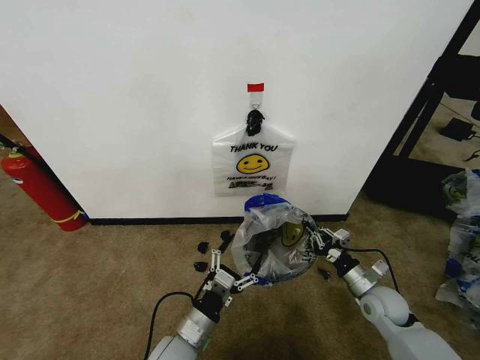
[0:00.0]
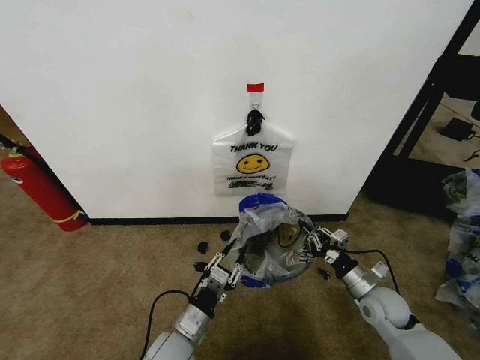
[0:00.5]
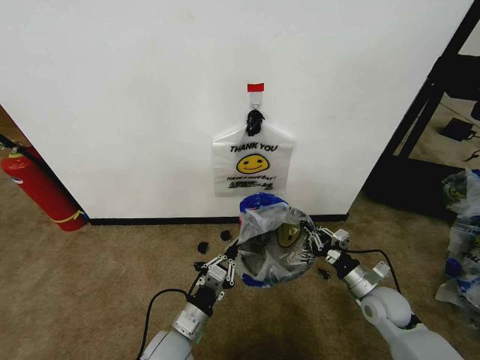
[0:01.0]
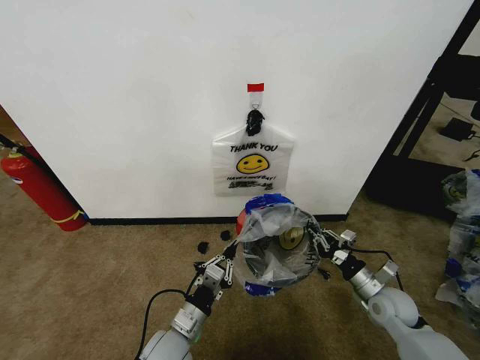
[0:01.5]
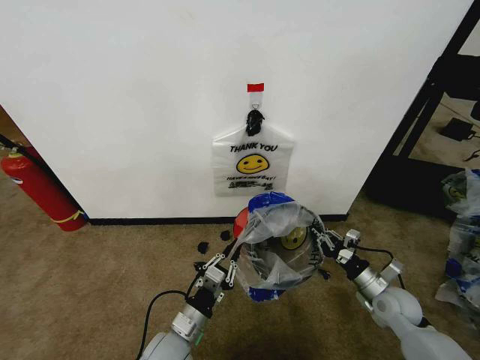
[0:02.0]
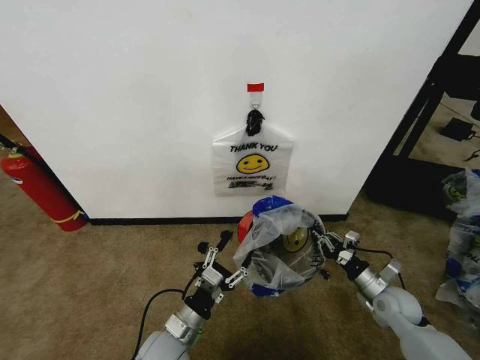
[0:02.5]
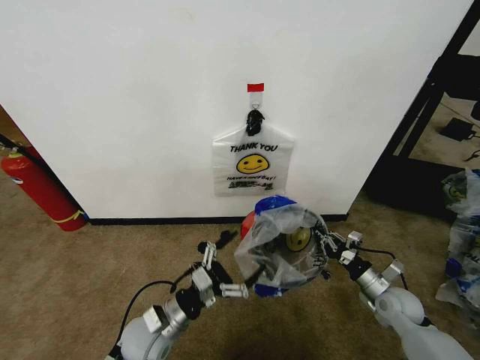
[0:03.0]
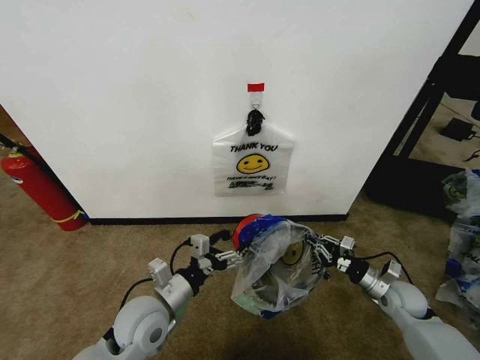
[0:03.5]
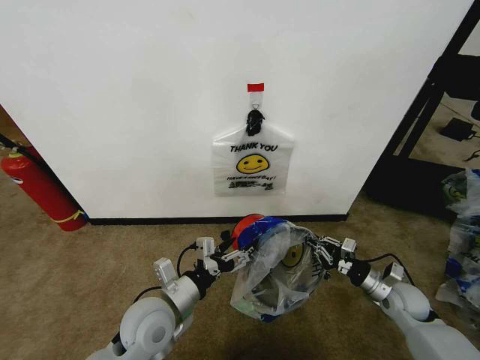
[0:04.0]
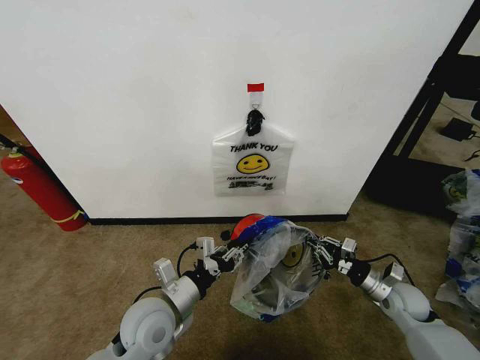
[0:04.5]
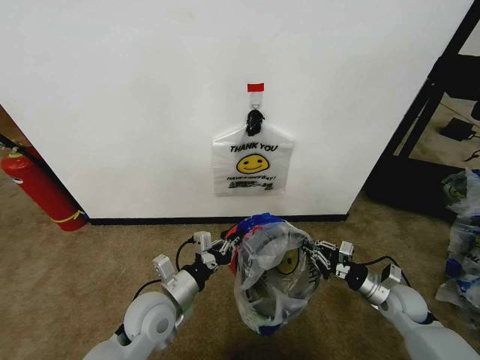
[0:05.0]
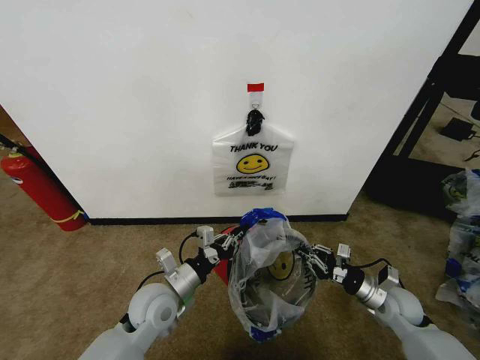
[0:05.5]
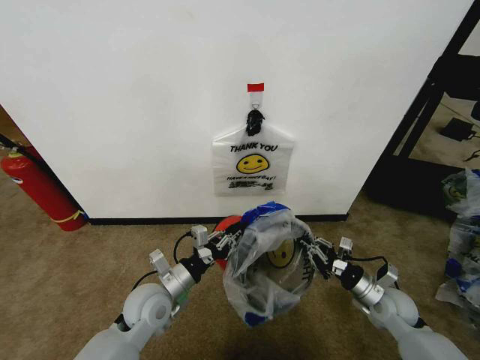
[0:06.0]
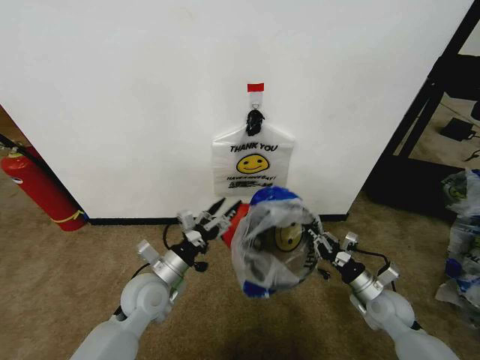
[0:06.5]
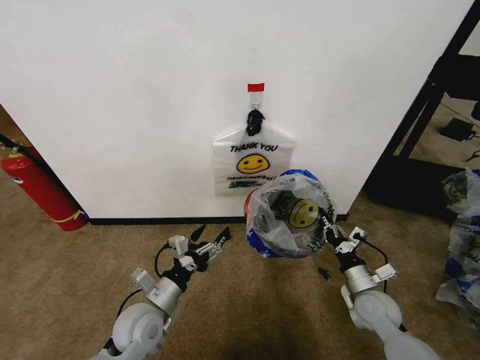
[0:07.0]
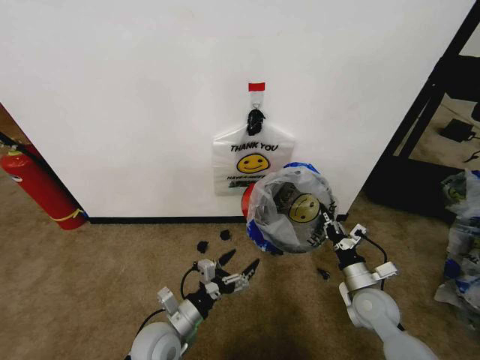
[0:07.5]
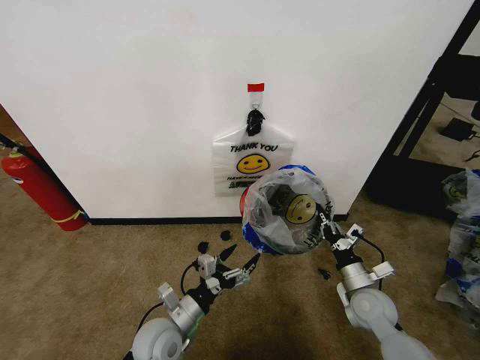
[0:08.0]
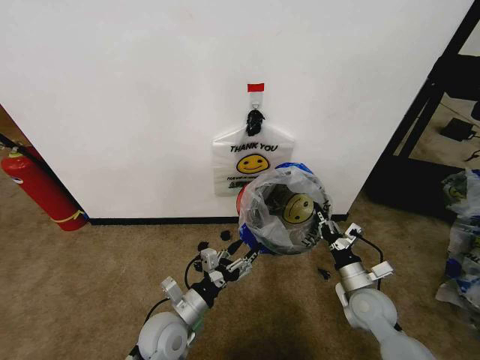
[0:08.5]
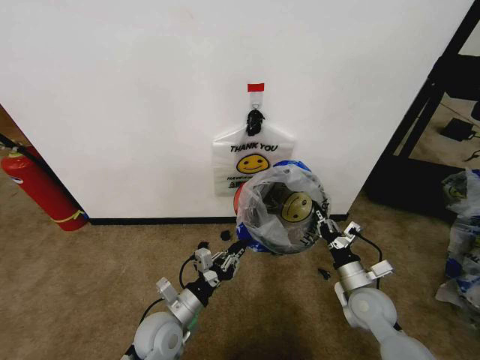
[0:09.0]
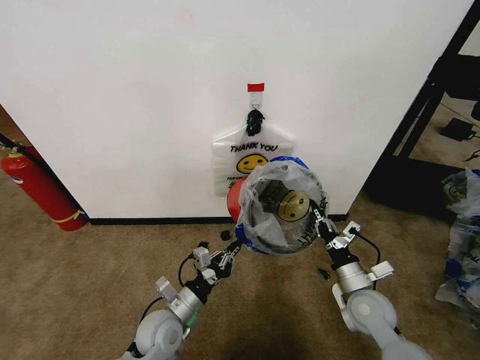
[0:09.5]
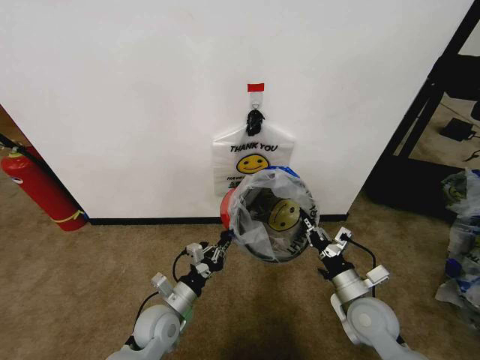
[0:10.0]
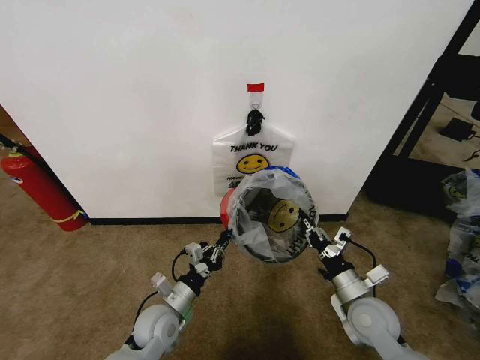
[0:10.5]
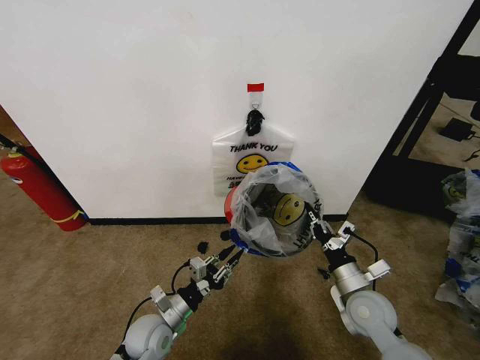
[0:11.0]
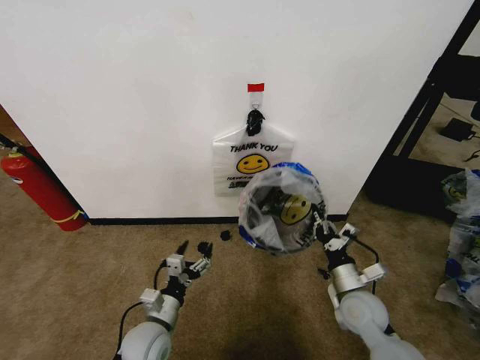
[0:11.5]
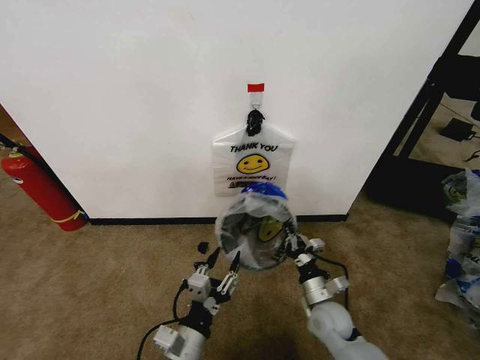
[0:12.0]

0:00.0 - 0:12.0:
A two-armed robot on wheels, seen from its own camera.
Task of the whole recording: Pick up the garbage bag from the wall and place it over the trash bin.
0:00.0 - 0:02.0: The left gripper closes its fingers.
0:02.0 - 0:04.0: The left gripper is displaced upward by roughly 10 cm, and opens up.
0:04.0 - 0:06.0: The left gripper ends up approximately 5 cm from where it was, and closes up.
0:06.0 - 0:08.0: The right gripper is displaced to the left by roughly 5 cm. The left gripper shifts approximately 5 cm backward, and opens its fingers.
0:08.0 - 0:10.0: The left gripper closes. Meanwhile the right gripper shifts by about 5 cm.
0:10.0 - 0:12.0: The left gripper heads backward, to the right and upward, covering some 15 cm, and opens up. The right gripper is displaced downward and to the left by roughly 10 cm.

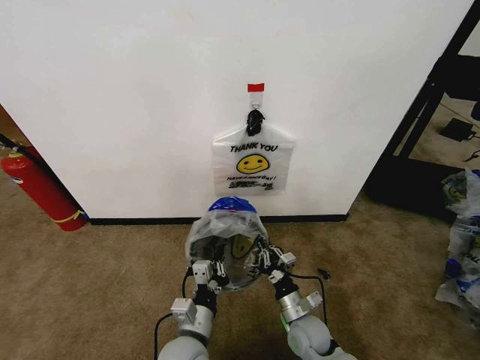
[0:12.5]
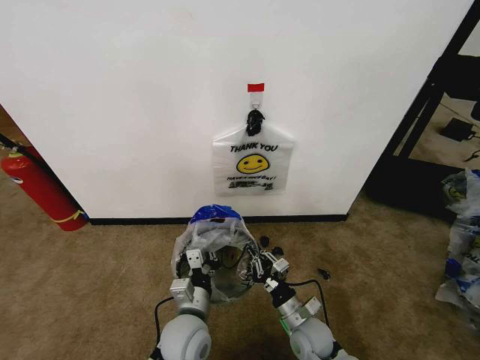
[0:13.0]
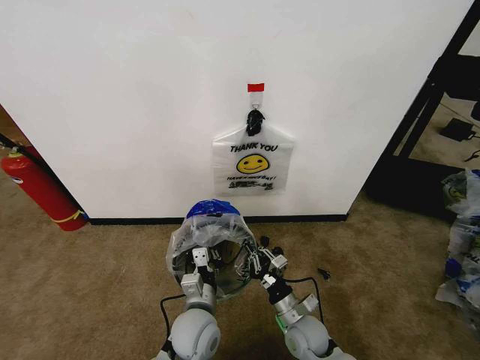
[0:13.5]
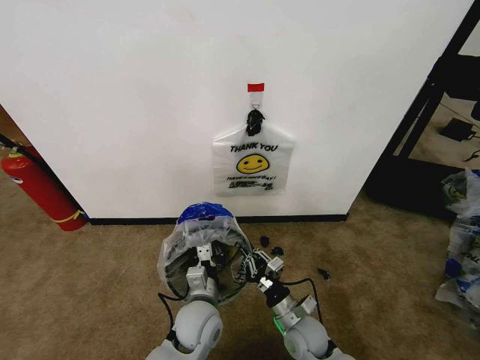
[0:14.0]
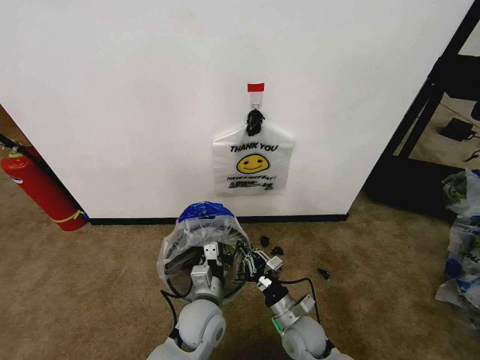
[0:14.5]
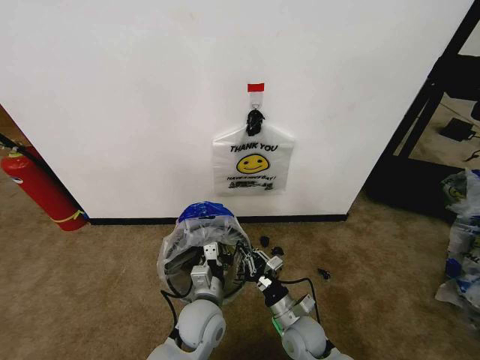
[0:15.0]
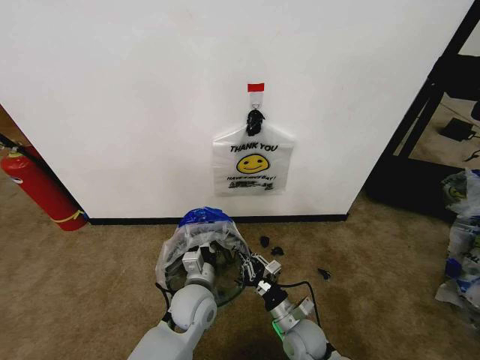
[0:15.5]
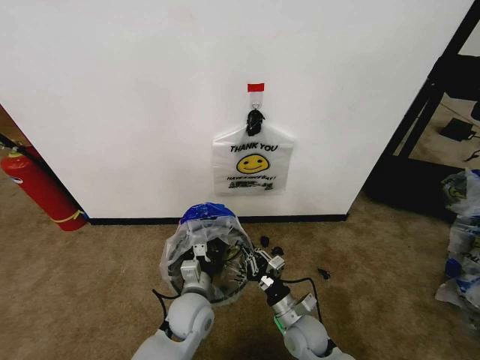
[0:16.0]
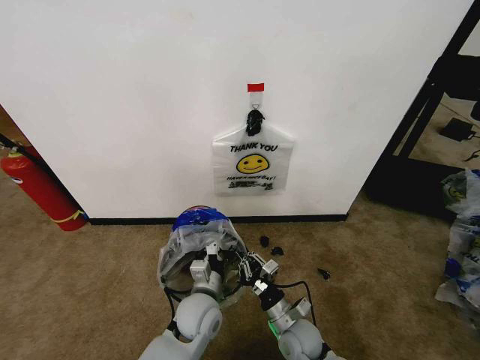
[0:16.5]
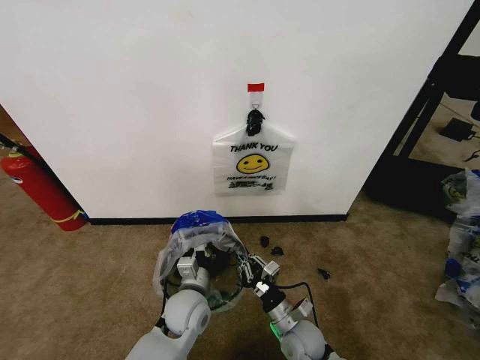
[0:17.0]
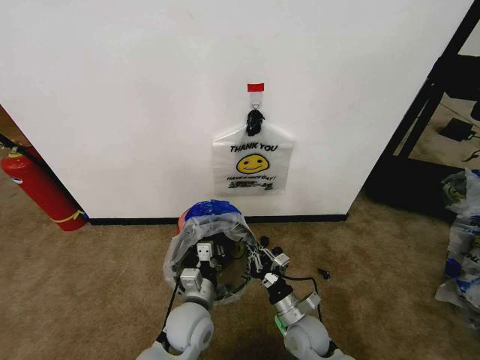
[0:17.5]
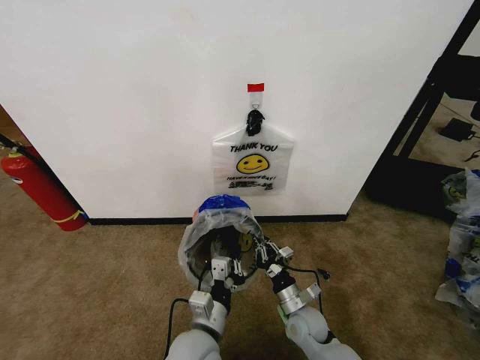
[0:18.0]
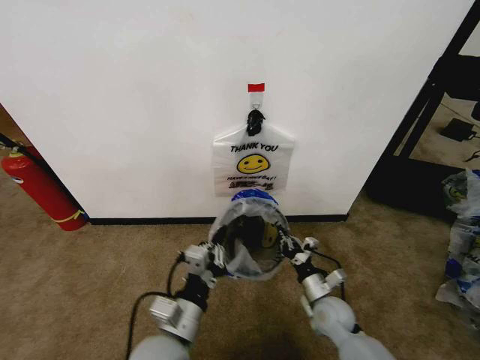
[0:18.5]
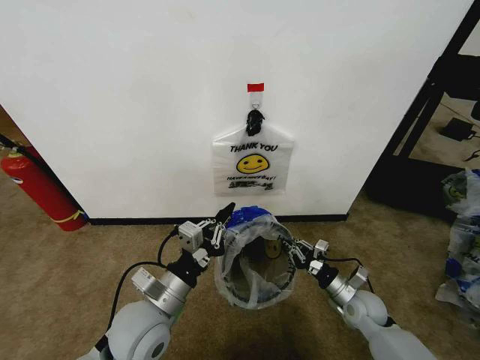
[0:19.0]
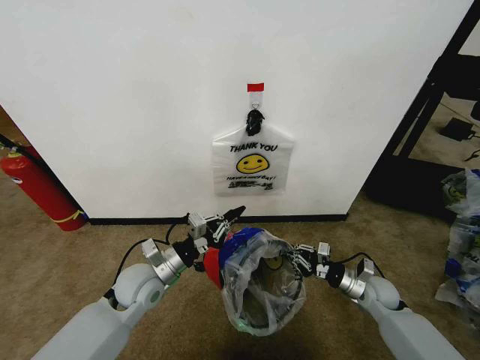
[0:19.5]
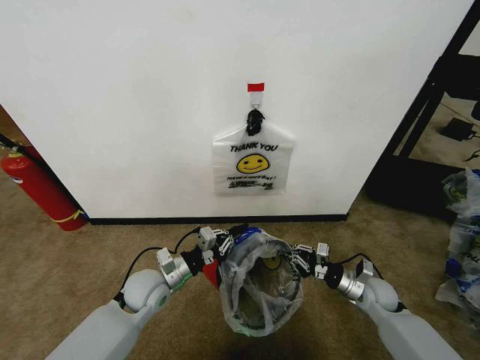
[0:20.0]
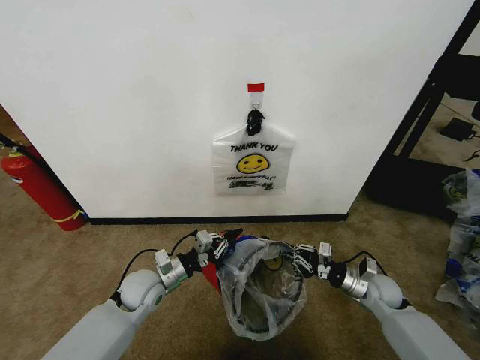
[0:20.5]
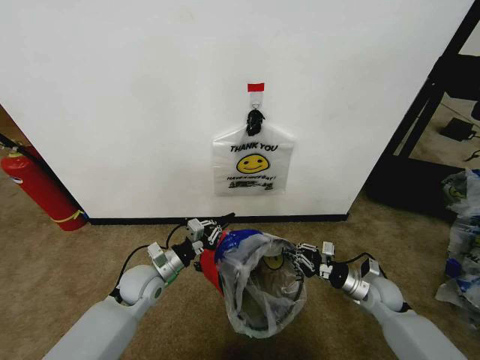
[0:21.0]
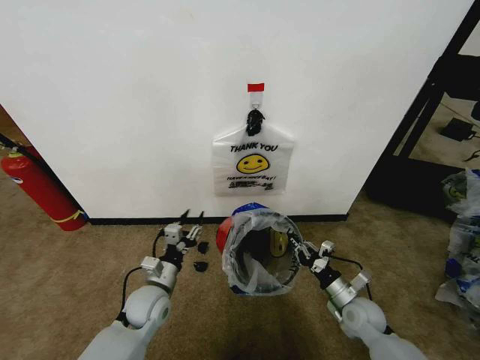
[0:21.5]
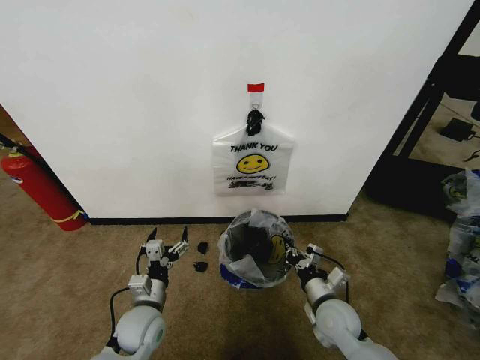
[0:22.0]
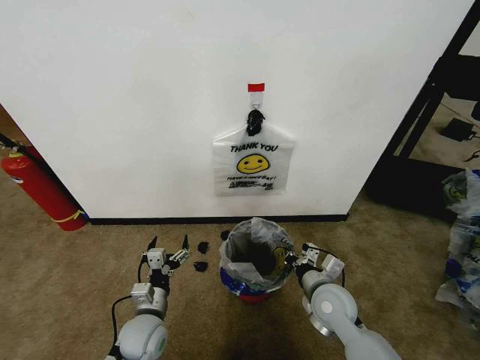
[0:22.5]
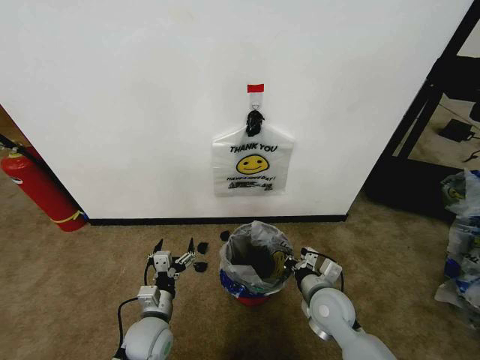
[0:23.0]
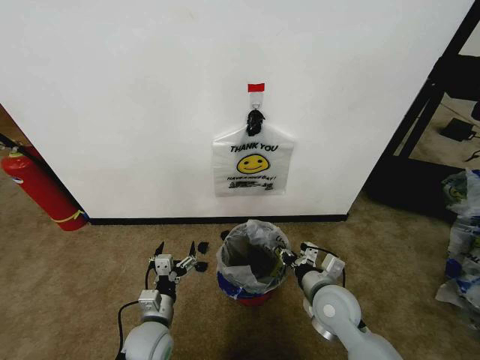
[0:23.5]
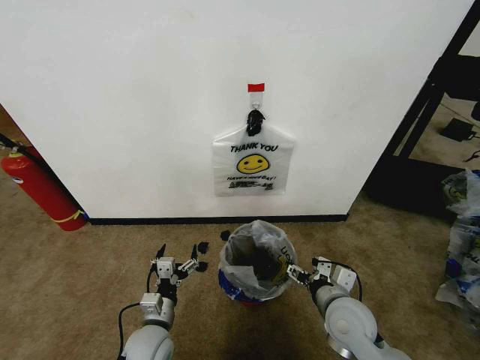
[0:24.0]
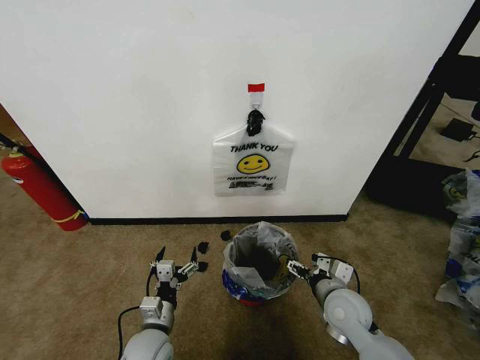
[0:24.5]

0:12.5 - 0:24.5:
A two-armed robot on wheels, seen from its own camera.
Task of the whole recording: Pick up the garbage bag from the wall and place it over the trash bin.
0:12.5 - 0:14.5: The left gripper goes about 5 cm forward.
0:14.5 - 0:16.5: The grippers move only a little.
0:16.5 - 0:18.5: The right gripper moves to the right and forward, some 10 cm. The left gripper travels backward and upward by roughly 15 cm.
0:18.5 - 0:20.5: The right gripper shifts approximately 10 cm to the right. The left gripper goes roughly 20 cm forward, to the left and downward.
0:20.5 - 0:22.5: The right gripper moves to the left, approximately 15 cm. Meanwhile the left gripper is displaced backward by some 10 cm, and opens.
0:22.5 - 0:24.5: The right gripper opens its fingers.

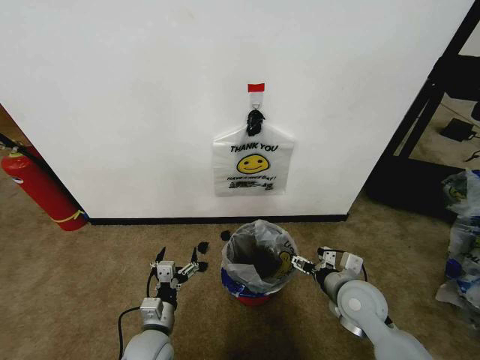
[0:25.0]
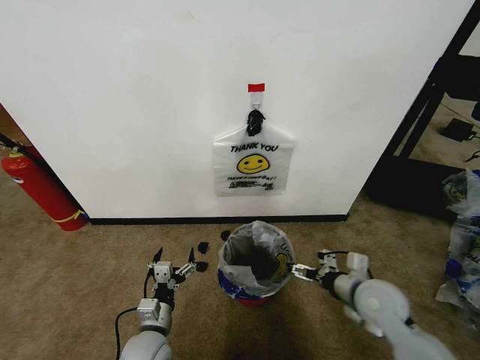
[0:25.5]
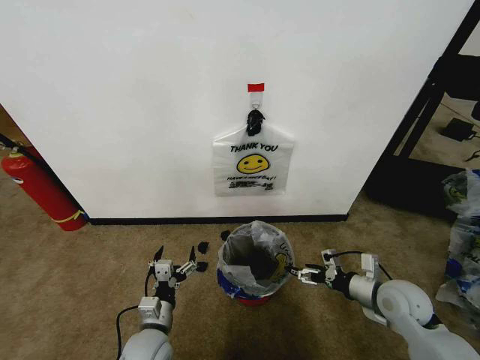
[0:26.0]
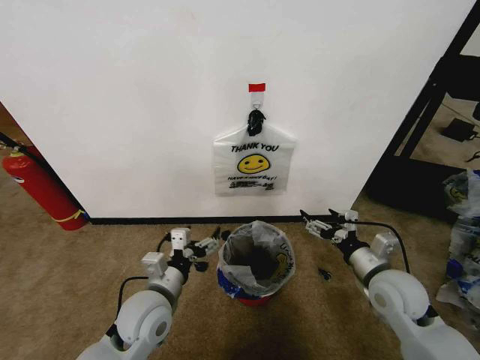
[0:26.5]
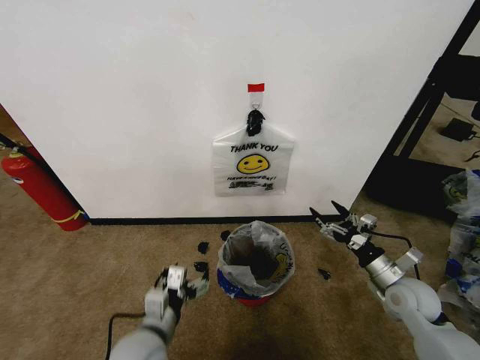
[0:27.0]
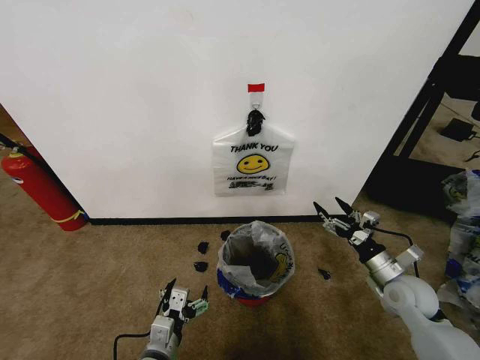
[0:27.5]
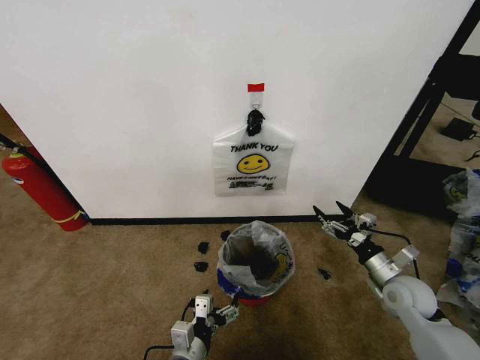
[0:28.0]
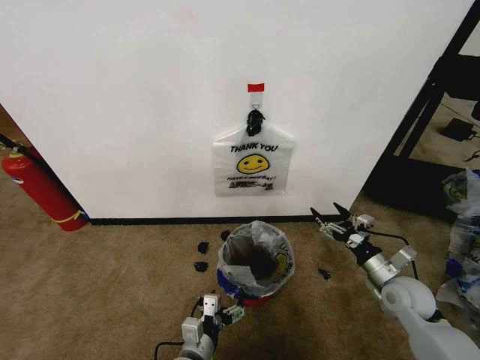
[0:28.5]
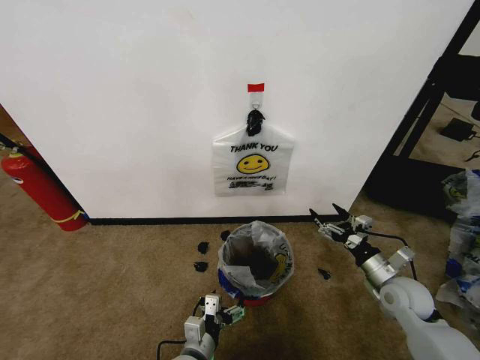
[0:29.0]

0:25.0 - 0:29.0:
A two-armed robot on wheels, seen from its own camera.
Task of the whole recording: Pick up the garbage bag from the wall and place it over the trash bin.
0:25.0 - 0:27.0: The left gripper goes approximately 10 cm upward. The right gripper moves left and right over some 10 cm, changing direction 2 times.
0:27.0 - 0:29.0: The left gripper moves downward and to the right, some 10 cm.
